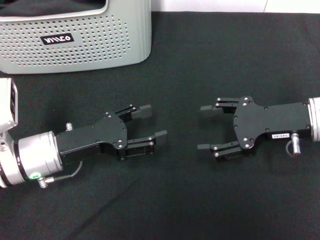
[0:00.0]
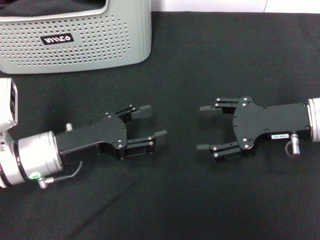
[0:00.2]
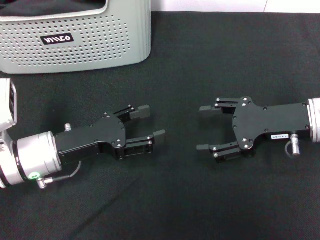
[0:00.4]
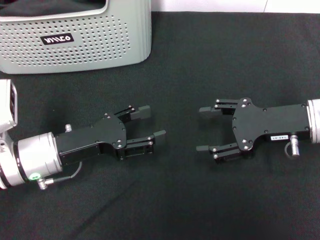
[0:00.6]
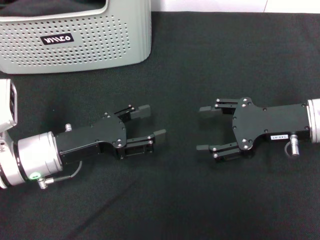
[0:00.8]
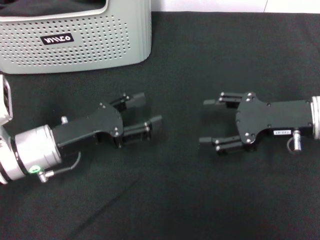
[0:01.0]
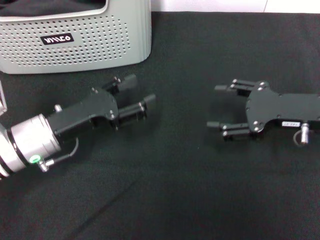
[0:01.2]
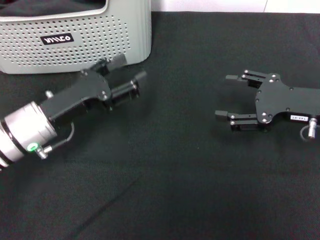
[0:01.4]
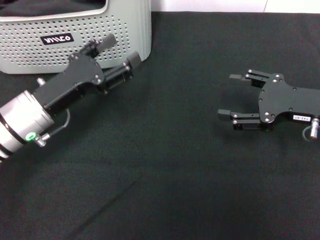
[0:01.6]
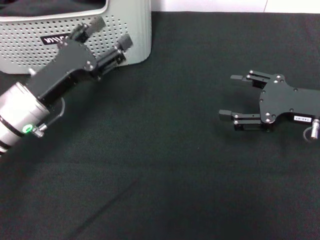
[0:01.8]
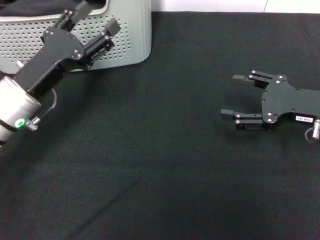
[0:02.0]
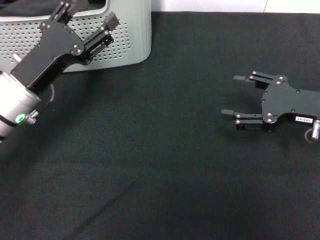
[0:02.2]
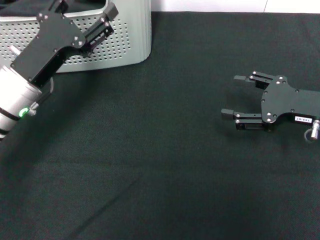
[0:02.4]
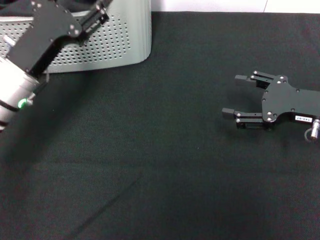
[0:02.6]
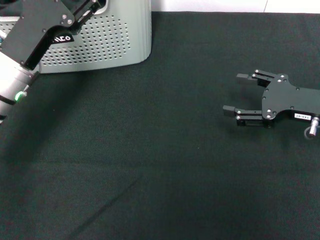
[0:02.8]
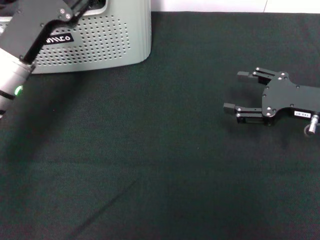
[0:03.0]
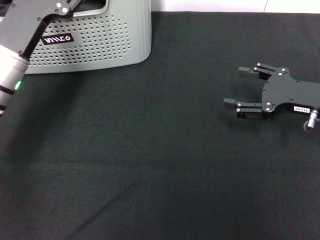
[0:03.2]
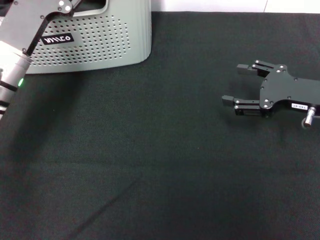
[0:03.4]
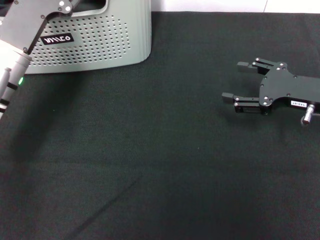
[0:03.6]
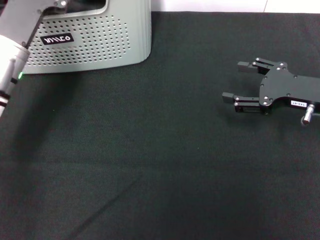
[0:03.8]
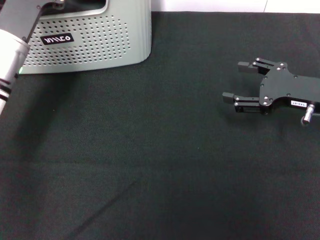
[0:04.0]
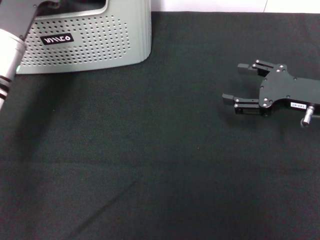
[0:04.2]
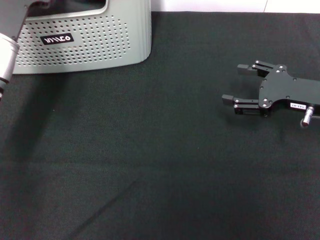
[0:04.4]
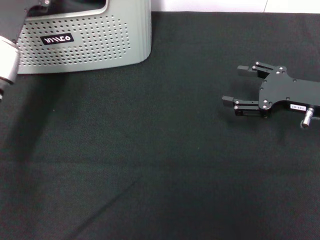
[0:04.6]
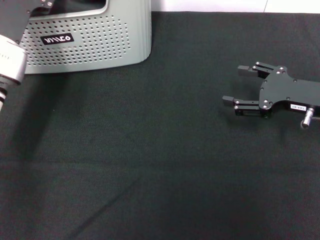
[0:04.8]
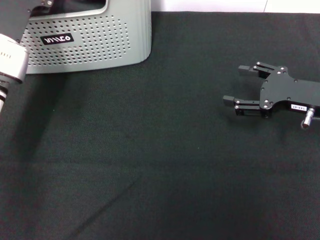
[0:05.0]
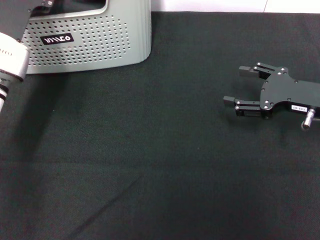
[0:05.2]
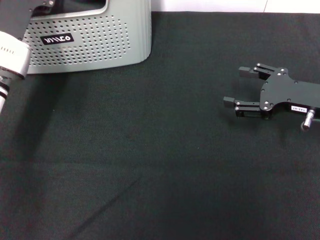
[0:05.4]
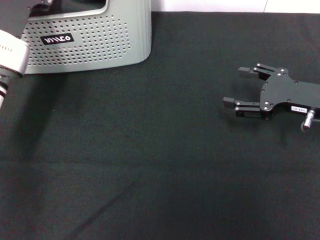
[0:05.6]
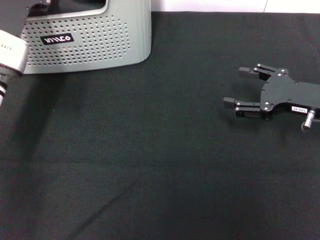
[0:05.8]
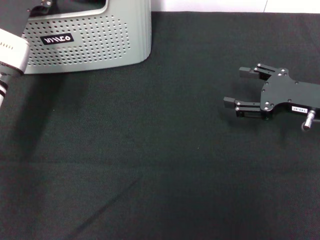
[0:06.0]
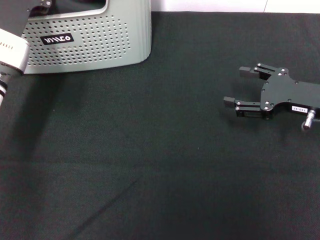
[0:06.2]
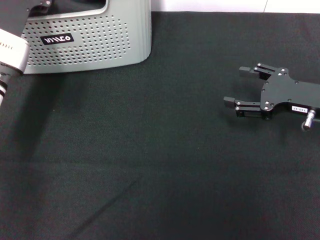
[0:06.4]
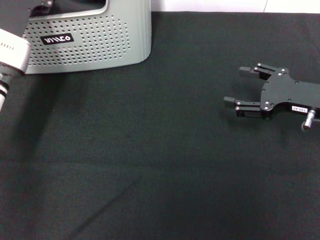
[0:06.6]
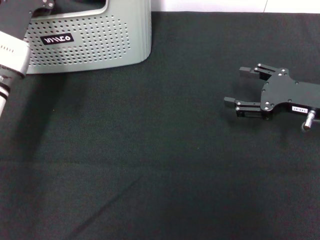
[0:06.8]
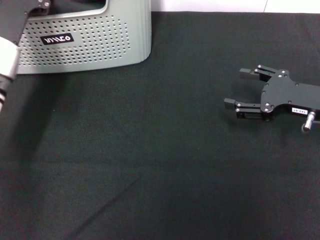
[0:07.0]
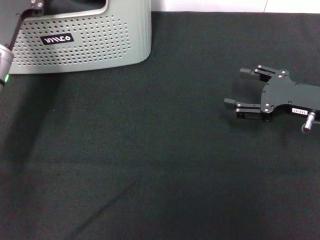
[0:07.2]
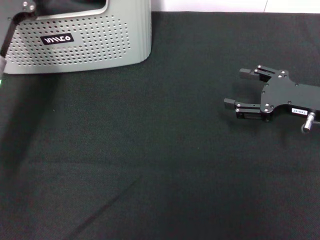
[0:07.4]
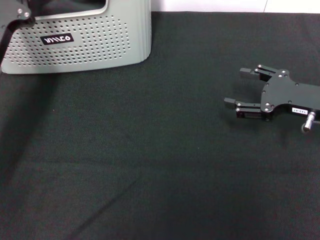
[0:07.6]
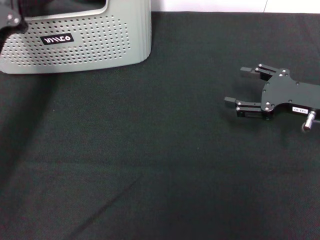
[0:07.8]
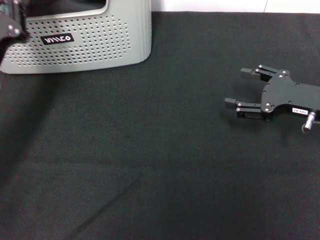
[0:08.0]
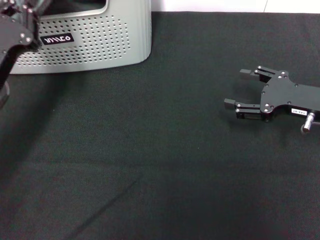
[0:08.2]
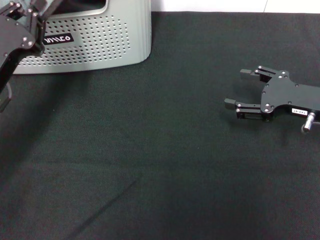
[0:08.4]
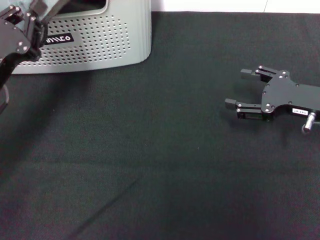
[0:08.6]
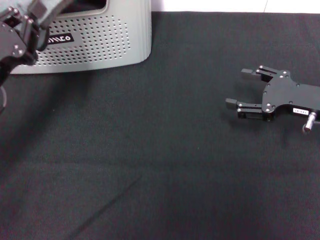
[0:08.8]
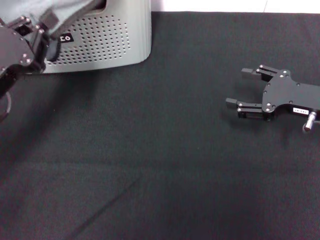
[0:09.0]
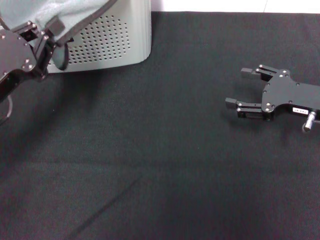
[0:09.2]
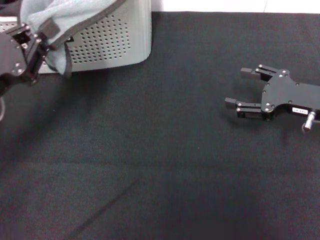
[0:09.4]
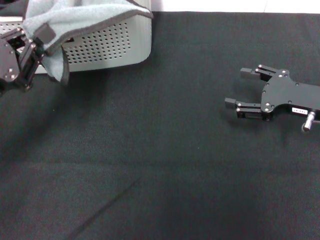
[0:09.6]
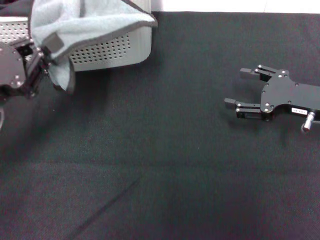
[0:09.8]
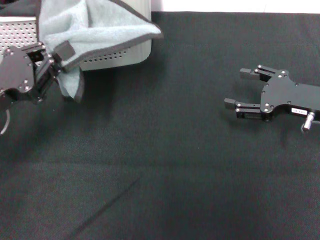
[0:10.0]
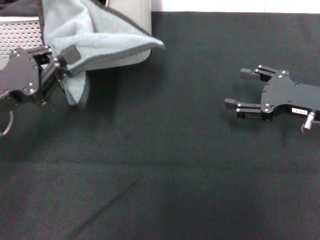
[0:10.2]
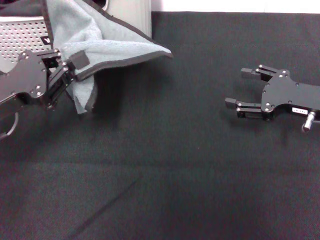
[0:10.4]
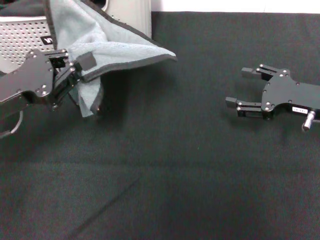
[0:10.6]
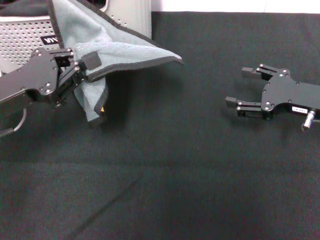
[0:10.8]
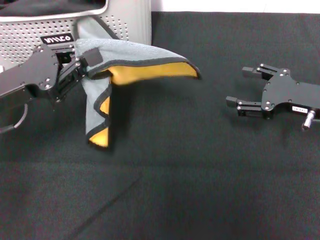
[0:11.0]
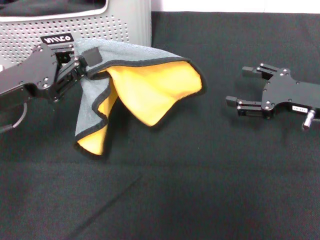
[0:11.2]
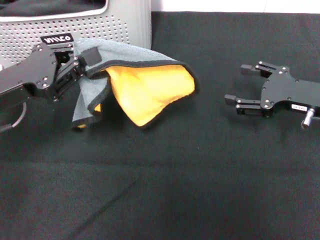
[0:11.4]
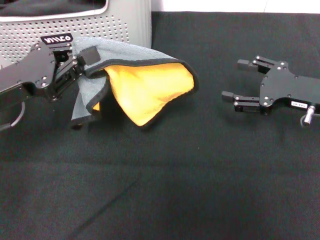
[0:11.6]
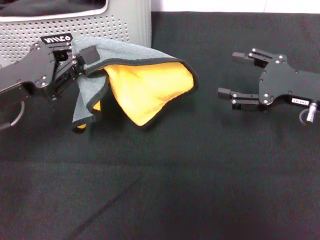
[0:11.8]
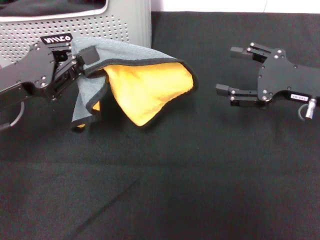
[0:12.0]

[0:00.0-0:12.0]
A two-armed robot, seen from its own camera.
Task of the whole recording: pick up the towel from the storage box and lay it flat on the black tablecloth.
Step, 0:00.0 to 0:07.0: Pick up a towel with the left gripper.
0:04.4 to 0:06.0: The grippers stay close to where they were, moving slightly.
0:06.0 to 0:07.6: The left gripper closes up.
0:07.6 to 0:09.0: The left gripper shifts by about 5 cm.
0:10.4 to 0:12.0: The grippers move only a little.

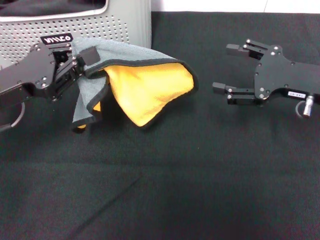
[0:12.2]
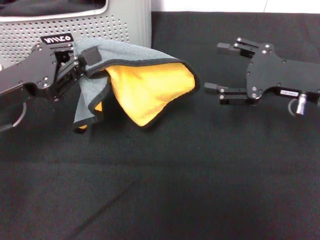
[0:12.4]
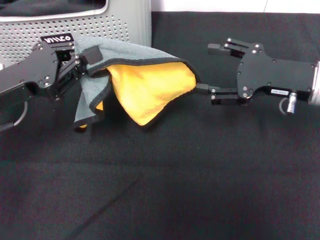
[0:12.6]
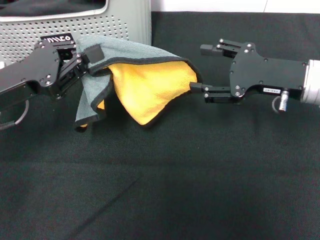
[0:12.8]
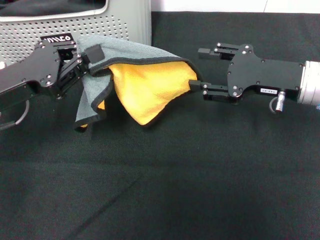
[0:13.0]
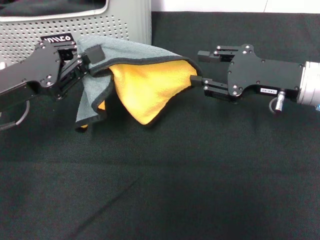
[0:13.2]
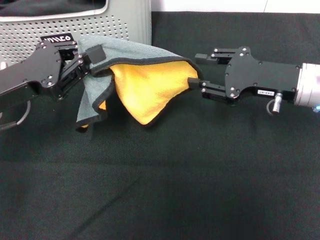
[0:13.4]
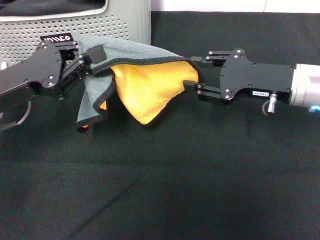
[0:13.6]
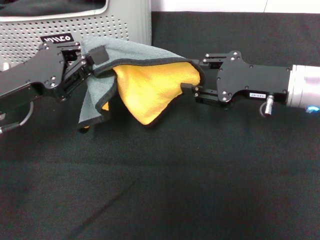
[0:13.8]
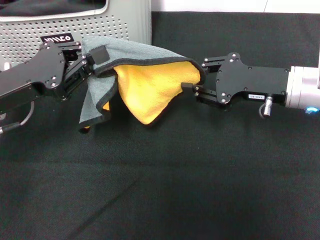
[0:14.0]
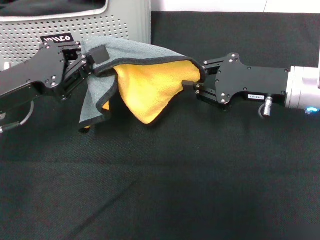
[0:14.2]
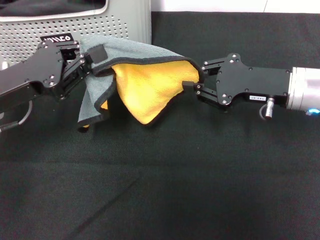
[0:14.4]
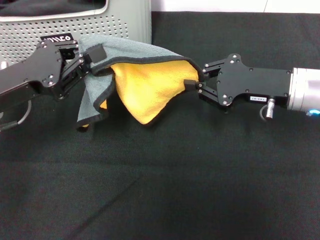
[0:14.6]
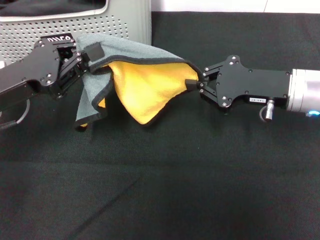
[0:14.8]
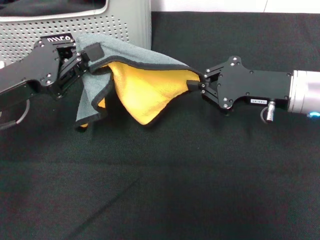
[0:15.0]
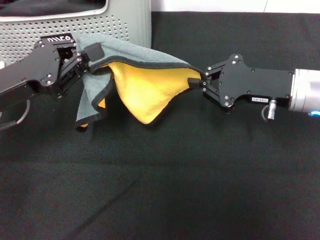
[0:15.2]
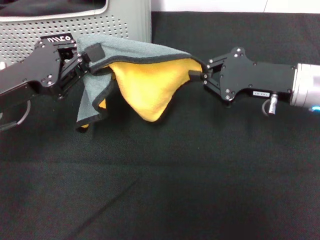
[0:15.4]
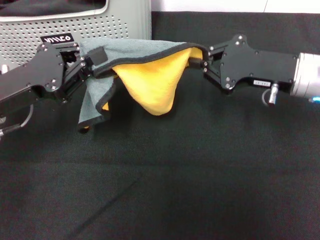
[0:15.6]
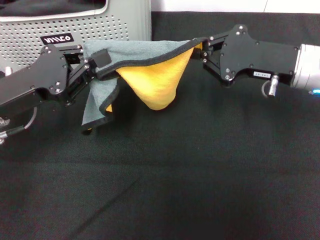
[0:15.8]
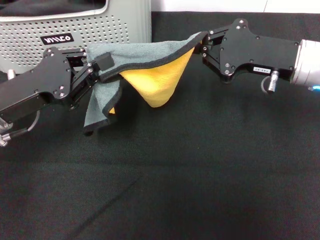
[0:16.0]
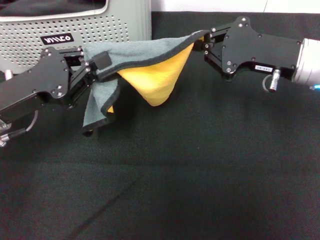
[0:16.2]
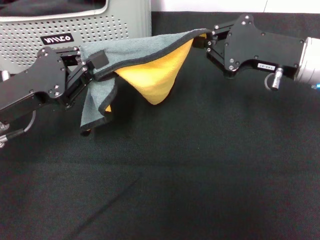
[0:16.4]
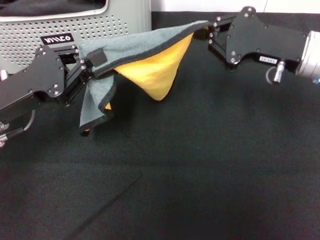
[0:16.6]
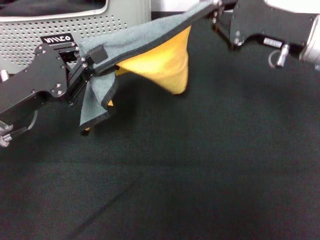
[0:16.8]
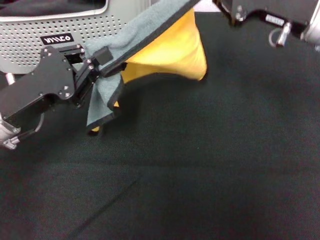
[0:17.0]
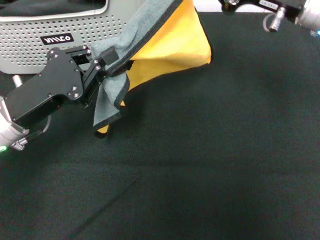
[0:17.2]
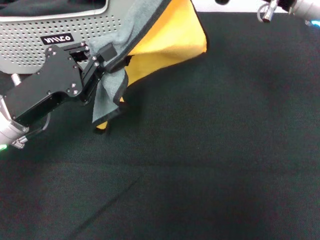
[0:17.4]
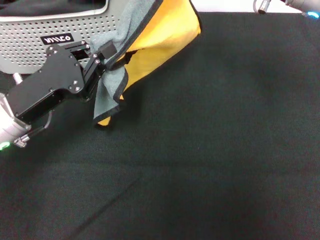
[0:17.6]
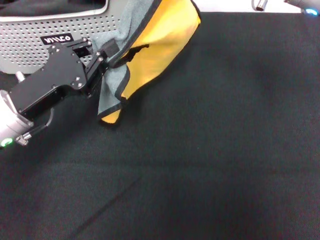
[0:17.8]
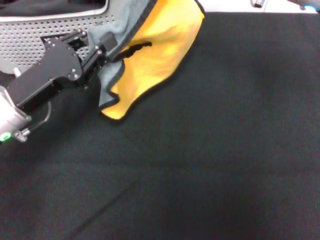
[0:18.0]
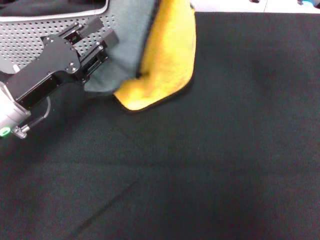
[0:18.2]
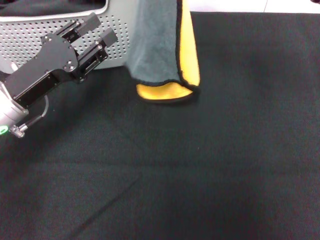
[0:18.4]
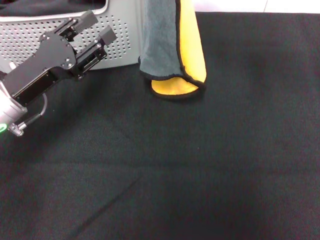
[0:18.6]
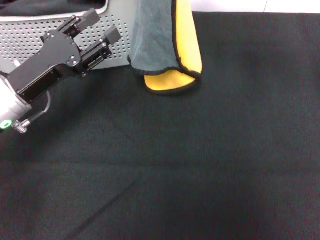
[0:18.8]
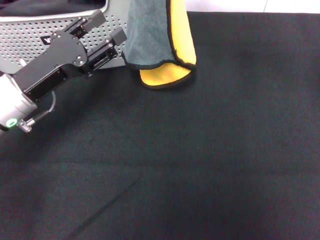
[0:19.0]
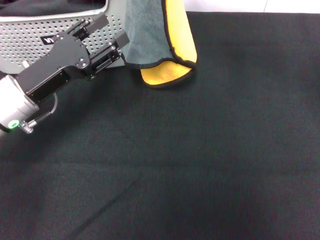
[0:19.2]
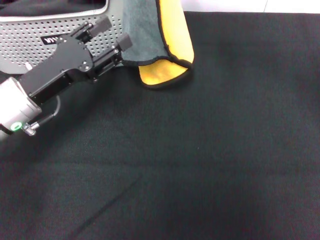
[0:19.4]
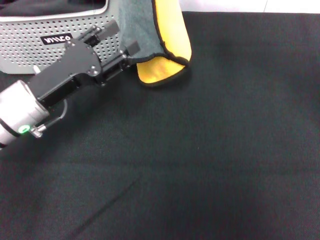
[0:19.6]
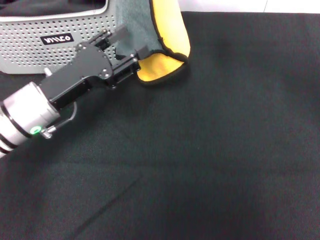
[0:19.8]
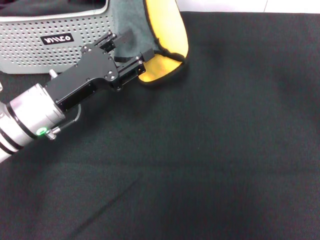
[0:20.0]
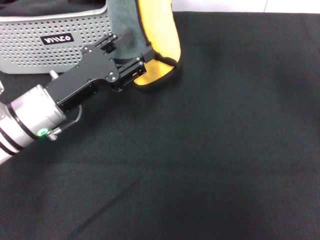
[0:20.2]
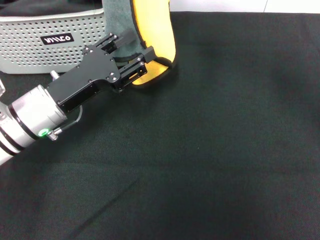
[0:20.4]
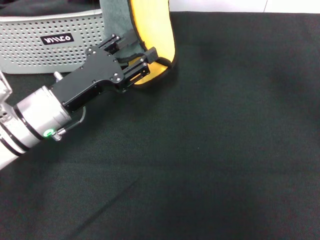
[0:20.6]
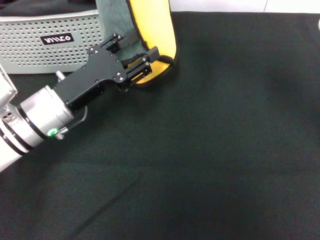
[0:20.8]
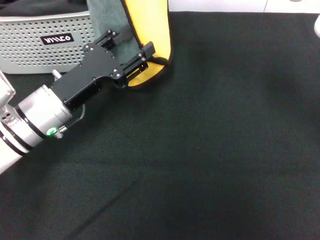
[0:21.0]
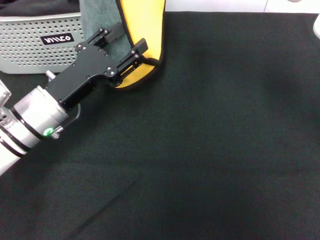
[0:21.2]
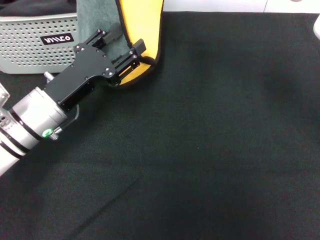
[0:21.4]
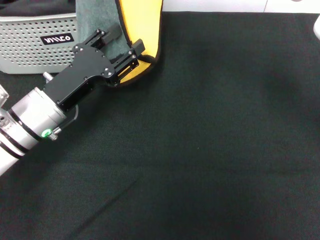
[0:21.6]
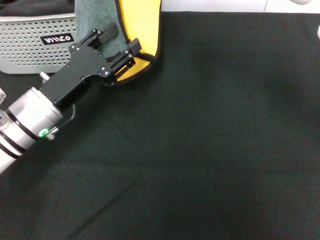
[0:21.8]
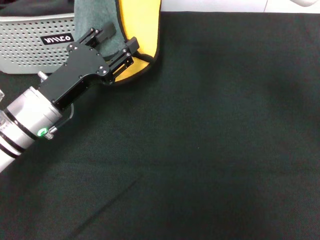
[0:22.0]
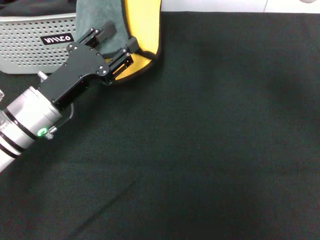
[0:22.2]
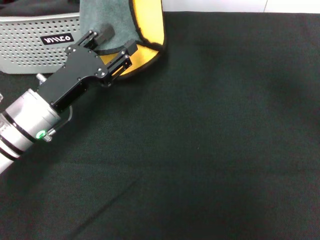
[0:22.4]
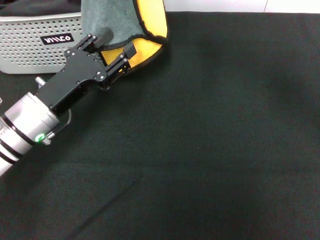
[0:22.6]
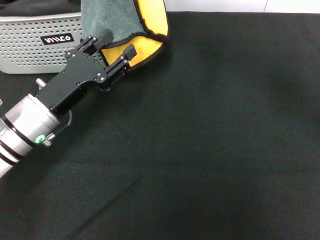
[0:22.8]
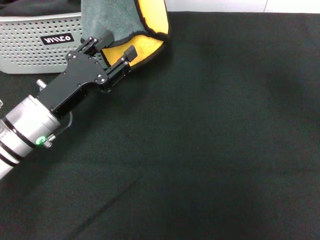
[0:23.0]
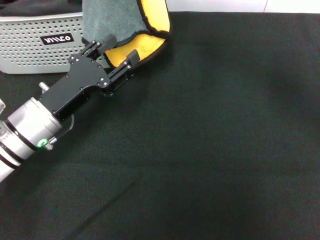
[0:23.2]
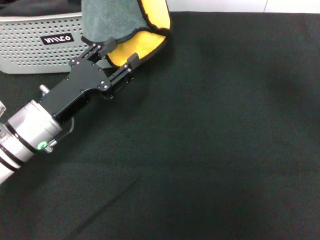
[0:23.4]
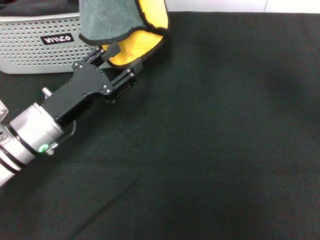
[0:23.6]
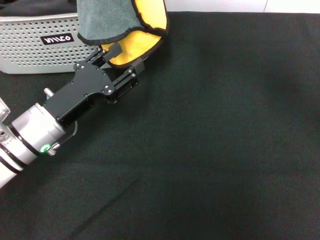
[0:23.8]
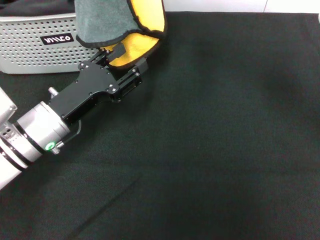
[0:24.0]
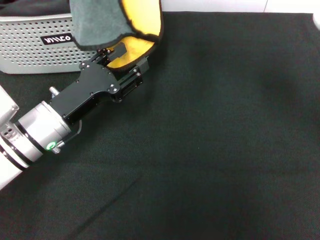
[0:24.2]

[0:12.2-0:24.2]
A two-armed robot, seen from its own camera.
Task of the whole recording: pick up the towel from the storage box and lay it flat on the black tablecloth.
Step, 0:12.2 to 0:15.2: Spread the towel flat with the left gripper.
0:12.2 to 0:13.8: The right gripper changes place by some 5 cm, and closes up.
0:13.8 to 0:15.2: The right gripper closes its fingers.
0:16.6 to 0:18.2: The right gripper is displaced upward by about 10 cm.
0:18.2 to 0:19.8: The right gripper goes roughly 5 cm to the left. The left gripper opens its fingers.
0:19.8 to 0:24.2: The grippers make only small movements.
